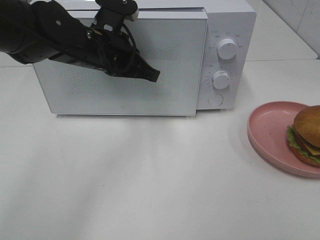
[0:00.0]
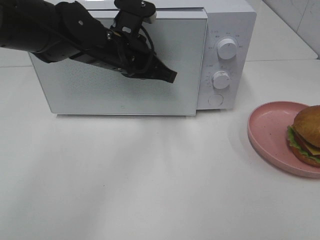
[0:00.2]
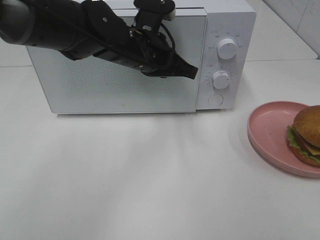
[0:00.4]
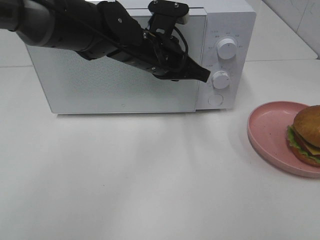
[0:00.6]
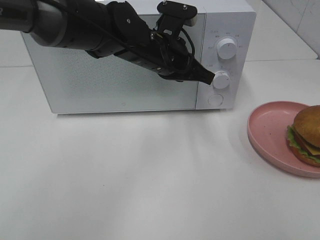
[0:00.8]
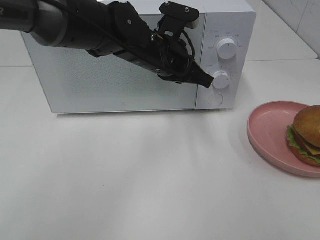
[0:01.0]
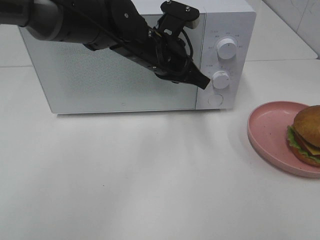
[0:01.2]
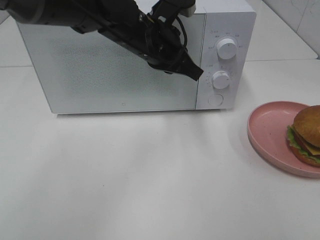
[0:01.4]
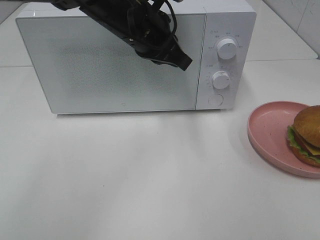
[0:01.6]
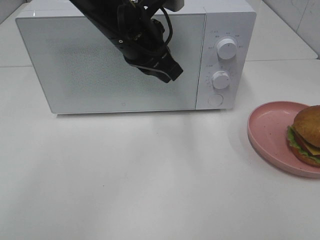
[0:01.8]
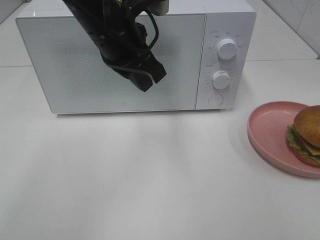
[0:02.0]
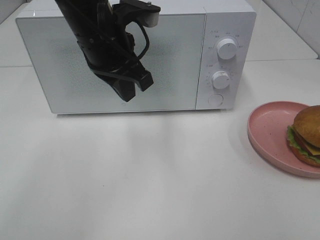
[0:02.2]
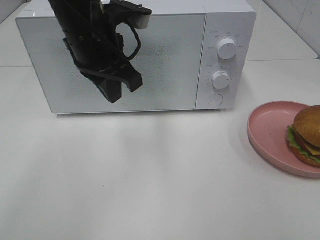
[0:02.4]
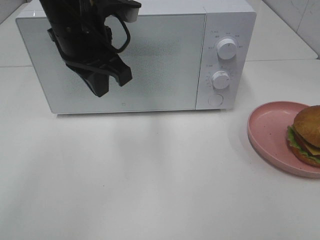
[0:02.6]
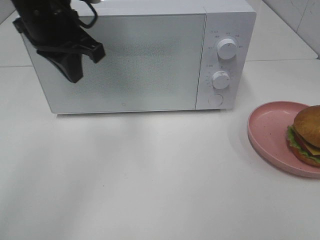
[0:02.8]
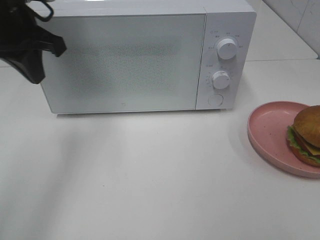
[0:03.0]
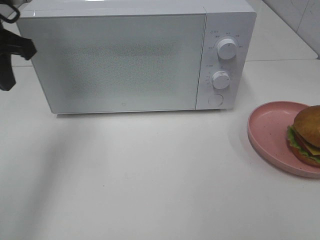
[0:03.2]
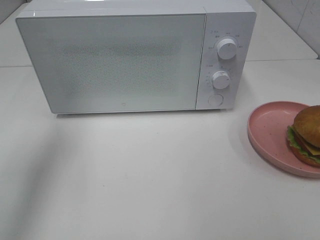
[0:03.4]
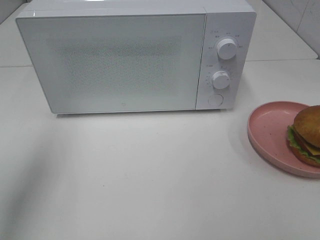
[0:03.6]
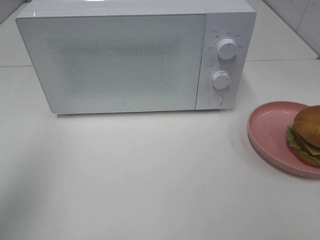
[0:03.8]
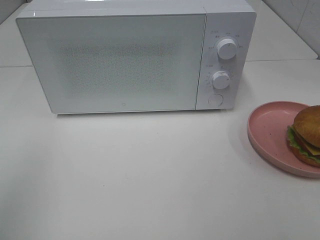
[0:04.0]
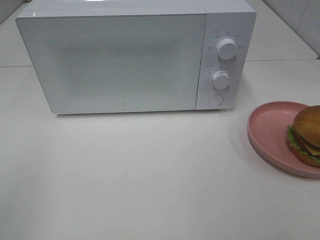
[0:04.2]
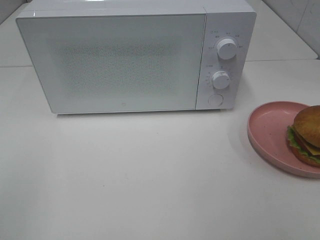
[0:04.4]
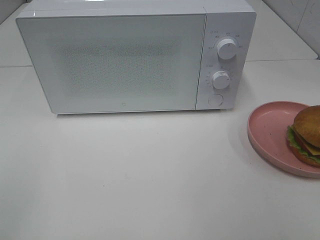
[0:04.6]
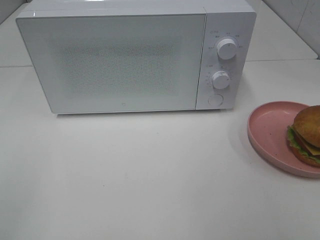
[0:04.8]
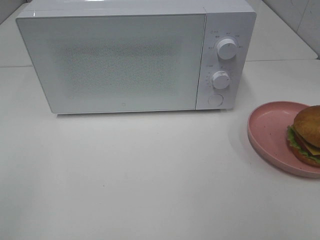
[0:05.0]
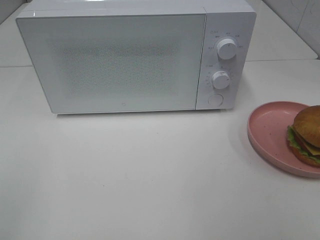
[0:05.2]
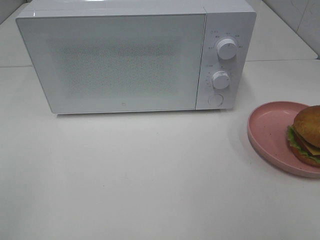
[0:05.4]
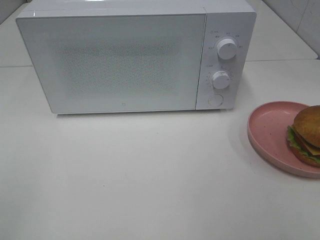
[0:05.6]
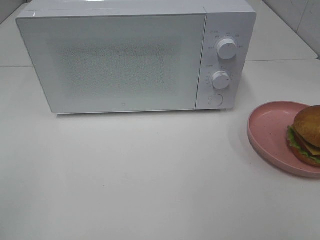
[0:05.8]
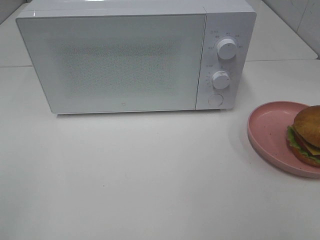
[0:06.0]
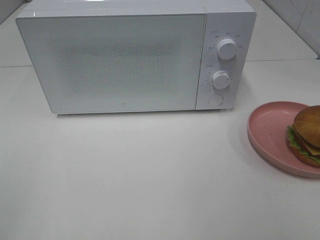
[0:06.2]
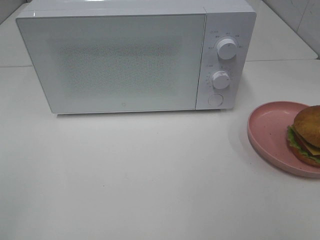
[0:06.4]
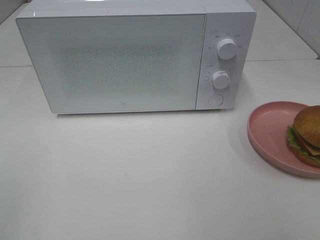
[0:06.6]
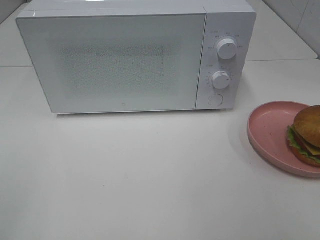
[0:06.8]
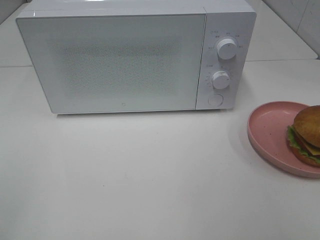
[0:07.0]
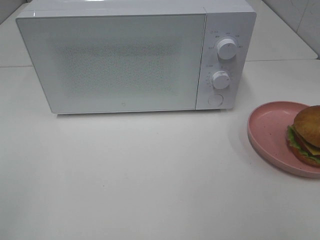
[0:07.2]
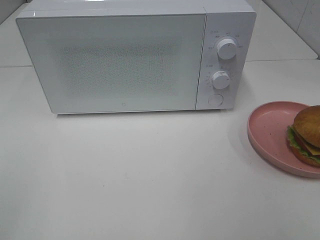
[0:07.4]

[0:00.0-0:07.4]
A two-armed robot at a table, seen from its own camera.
Task of the whole recording: Heat the burger.
0.0 to 1.4 s: The left gripper shifts roughly 5 cm to the right.
1.4 to 3.0 s: The left gripper shifts approximately 20 cm to the left.
3.0 to 4.4 s: The left gripper travels backward by some 30 cm.
6.0 to 7.4 s: The two grippers keep their place.

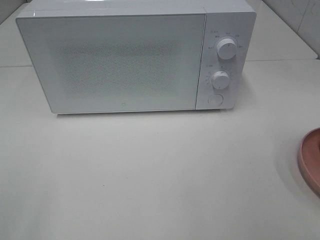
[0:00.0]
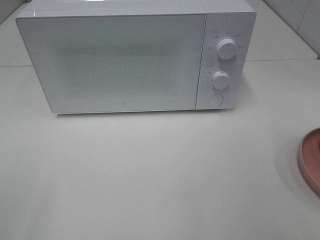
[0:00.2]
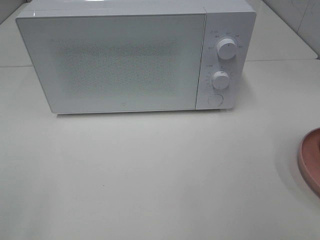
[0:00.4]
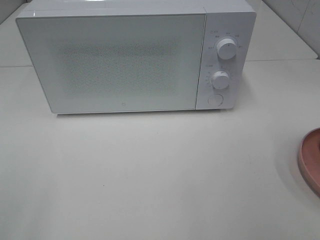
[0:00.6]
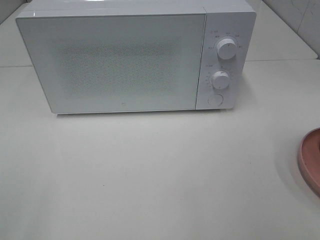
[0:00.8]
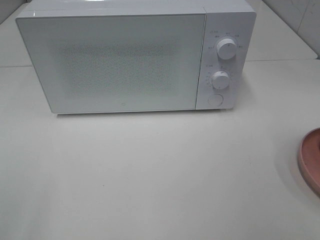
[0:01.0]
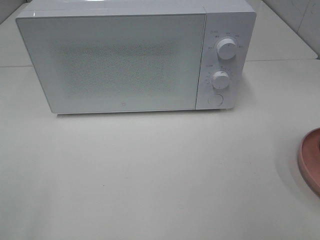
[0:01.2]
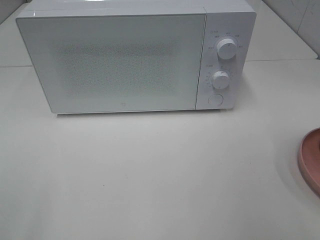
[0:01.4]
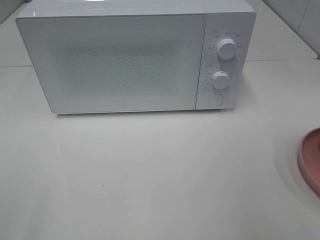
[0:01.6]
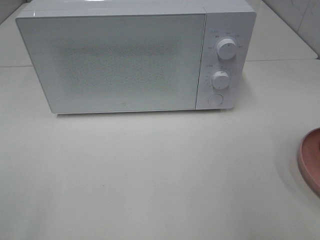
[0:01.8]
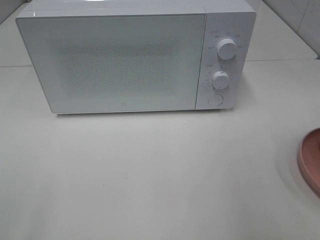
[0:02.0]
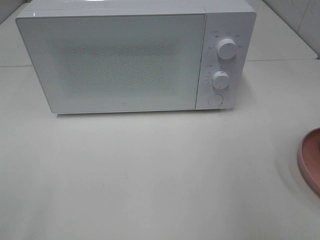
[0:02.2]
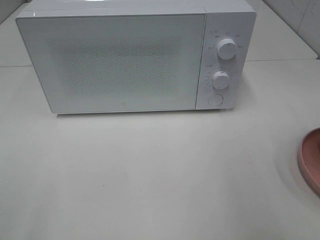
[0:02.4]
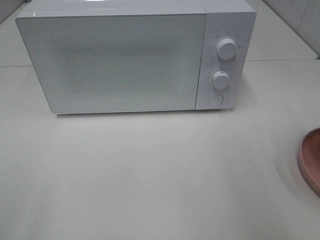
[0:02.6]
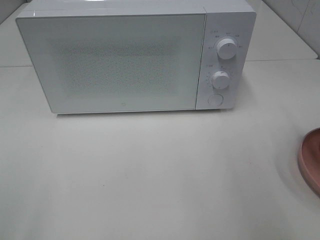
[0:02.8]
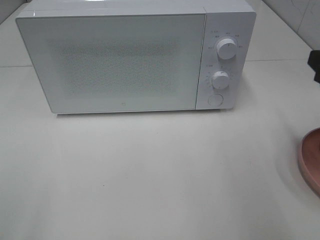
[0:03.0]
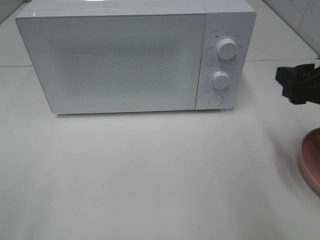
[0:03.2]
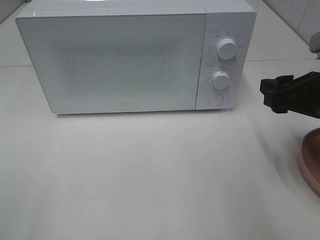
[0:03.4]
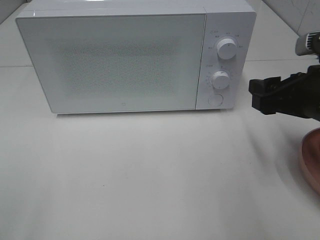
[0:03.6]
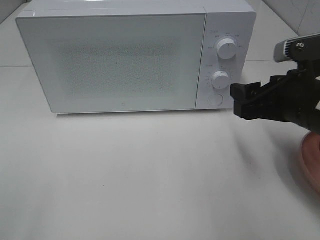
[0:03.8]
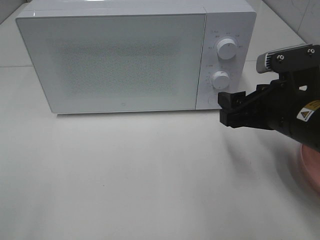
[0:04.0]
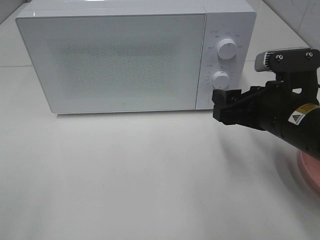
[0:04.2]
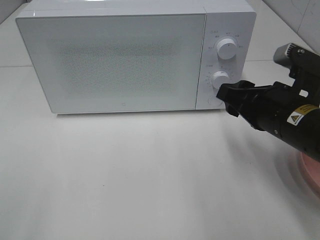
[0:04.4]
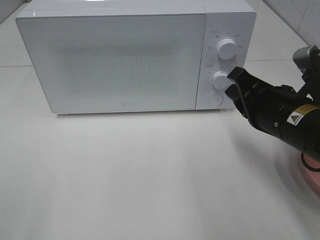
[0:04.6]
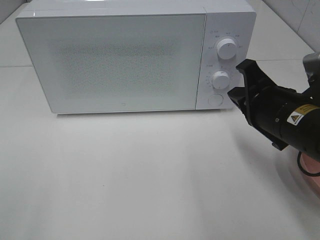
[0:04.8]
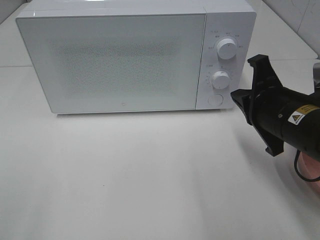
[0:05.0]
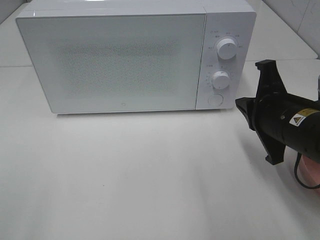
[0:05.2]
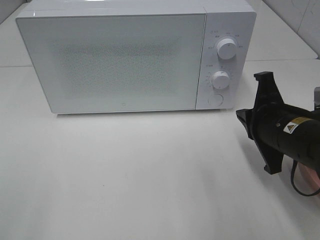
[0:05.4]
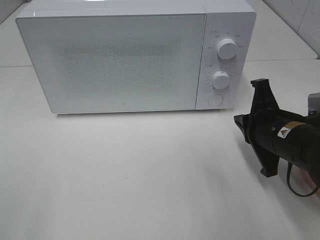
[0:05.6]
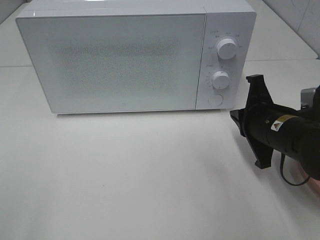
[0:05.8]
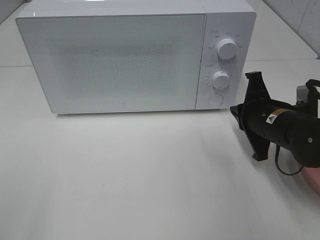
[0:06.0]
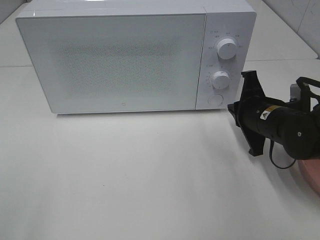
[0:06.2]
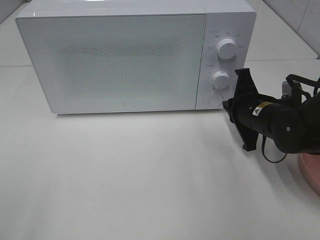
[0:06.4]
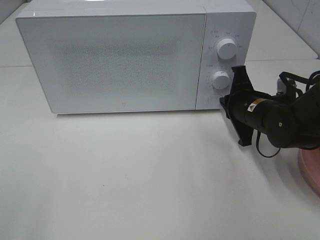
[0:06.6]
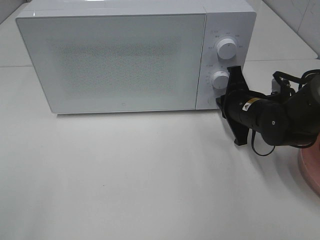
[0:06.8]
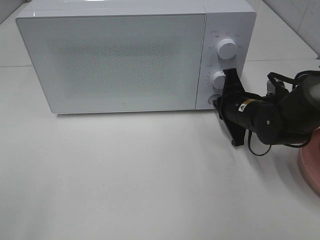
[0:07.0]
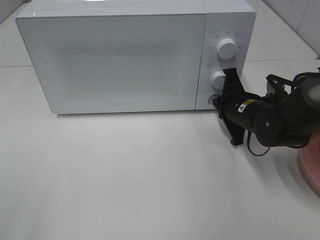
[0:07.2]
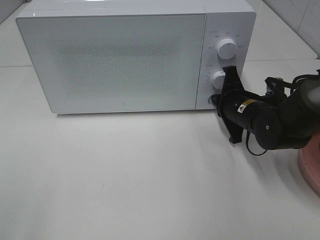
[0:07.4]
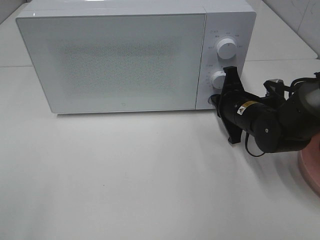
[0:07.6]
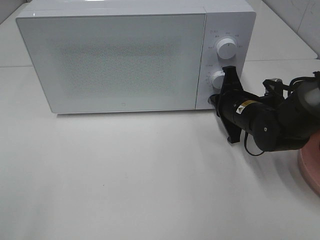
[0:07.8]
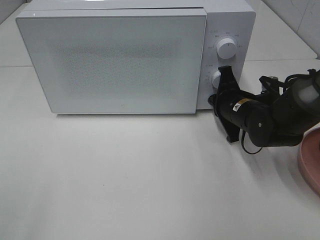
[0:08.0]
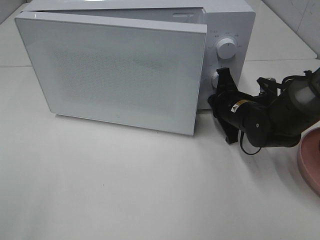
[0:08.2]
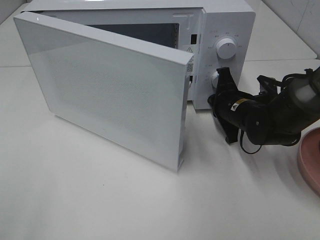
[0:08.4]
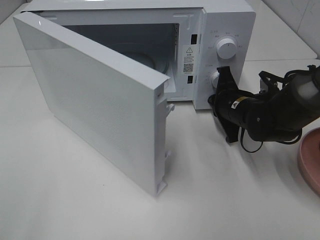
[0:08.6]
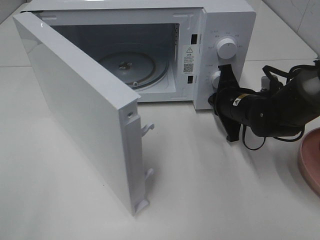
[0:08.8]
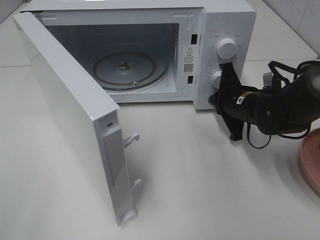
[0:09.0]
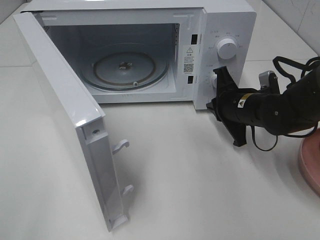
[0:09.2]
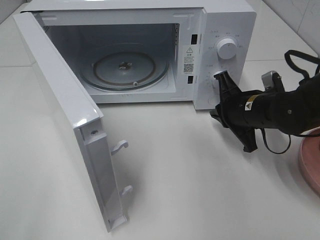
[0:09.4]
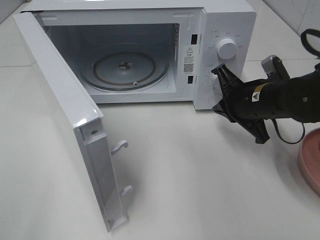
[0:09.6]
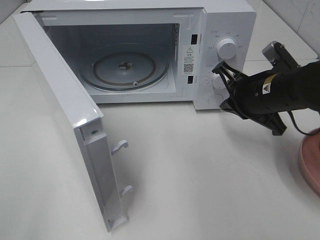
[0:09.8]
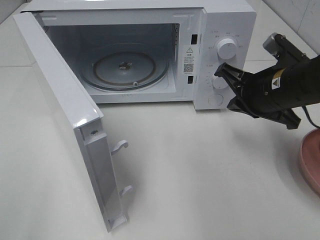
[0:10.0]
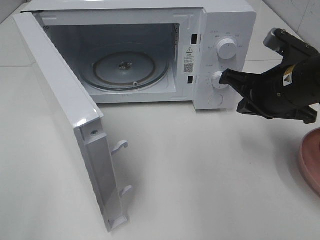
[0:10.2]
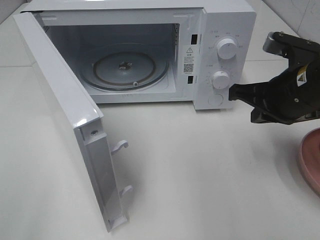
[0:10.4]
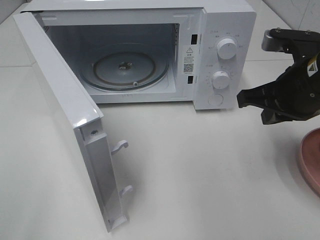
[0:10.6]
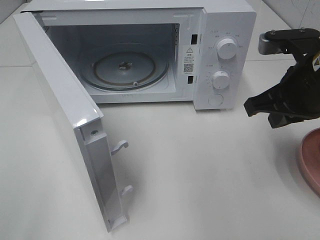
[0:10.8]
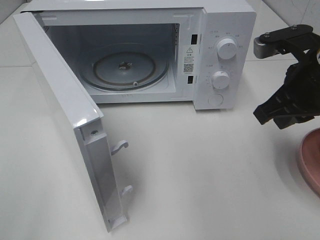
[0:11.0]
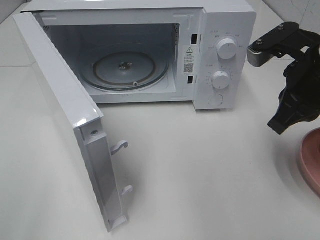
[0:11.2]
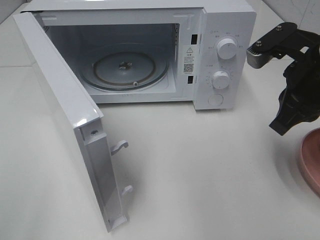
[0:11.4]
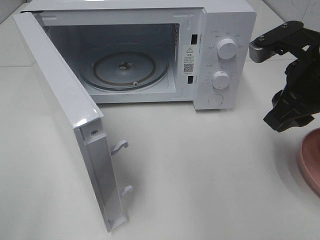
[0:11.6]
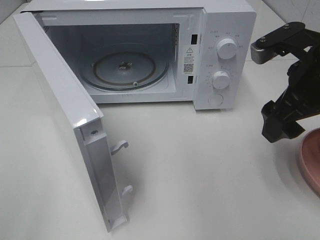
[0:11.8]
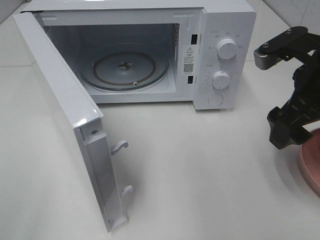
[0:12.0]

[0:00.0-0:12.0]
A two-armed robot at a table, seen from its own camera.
Task of the whole recording: Heat the burger.
Step, 0.0 to 9.0 s: Right hand: press the switch.
3.0 to 4.4 s: The right gripper moves to the left and downward, approximately 10 cm.
4.4 to 6.0 s: The right gripper travels downward and forward by approximately 10 cm, and closes.
6.0 to 7.6 s: The right gripper is displaced forward by roughly 5 cm.
9.0 to 10.4 s: The right gripper shifts some 15 cm upward and backward.
10.4 to 12.0 s: The right gripper opens its fingers.

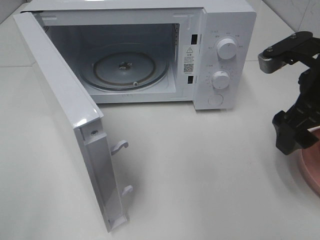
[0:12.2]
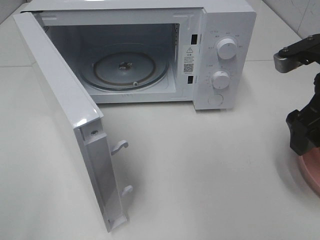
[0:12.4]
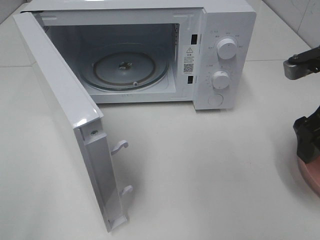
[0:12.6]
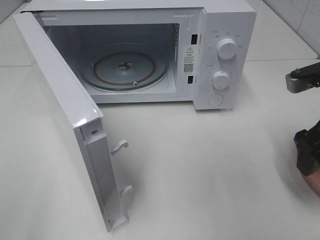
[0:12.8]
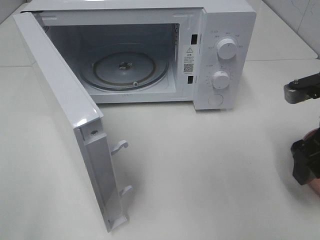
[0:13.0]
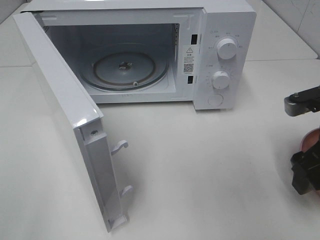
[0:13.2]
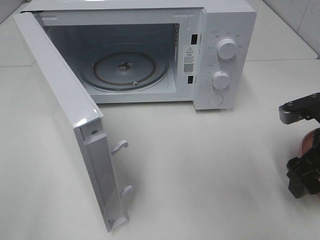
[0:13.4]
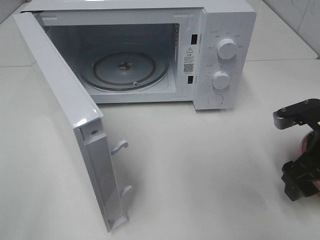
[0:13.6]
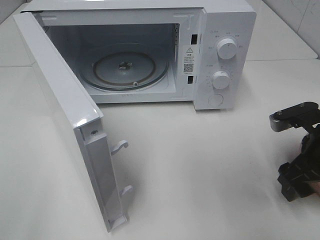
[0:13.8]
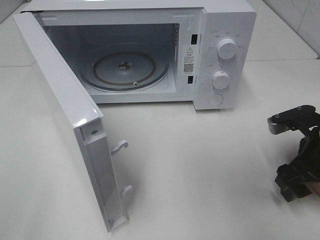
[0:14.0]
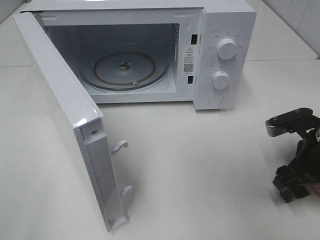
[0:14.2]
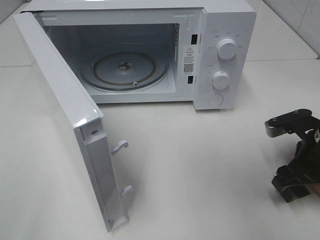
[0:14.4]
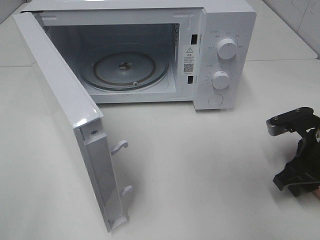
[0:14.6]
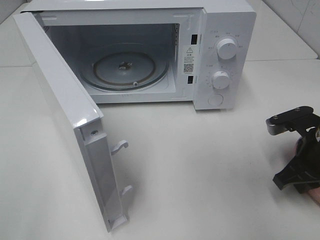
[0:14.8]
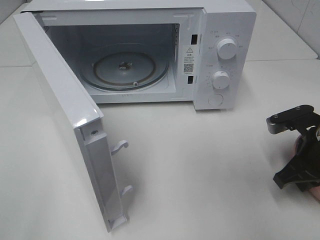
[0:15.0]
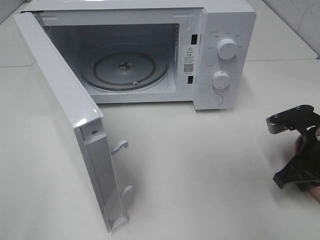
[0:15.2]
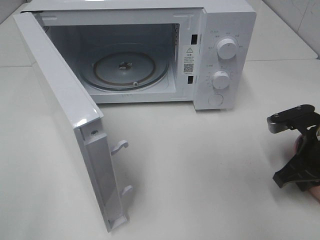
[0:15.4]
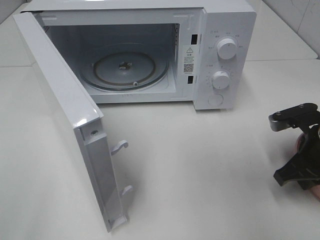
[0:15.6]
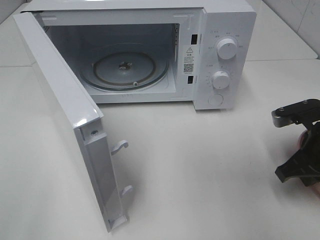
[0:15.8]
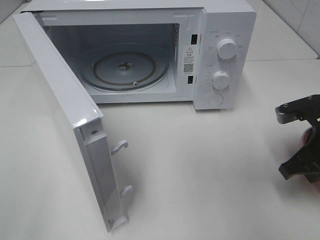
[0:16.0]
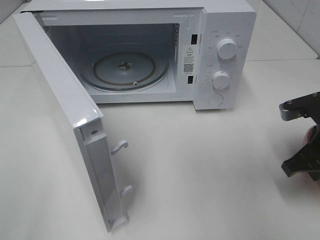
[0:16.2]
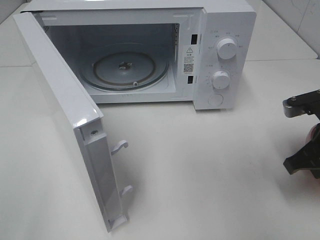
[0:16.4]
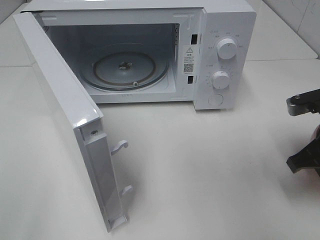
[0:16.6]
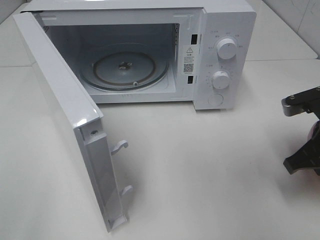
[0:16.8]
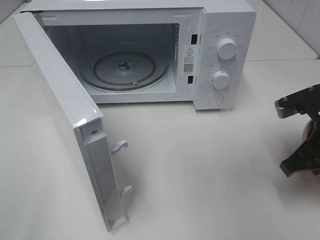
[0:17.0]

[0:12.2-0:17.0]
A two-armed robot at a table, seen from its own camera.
Task of the whole recording: Heat the burger.
Step, 12.2 to 15.6 s: Right hand: grab the plate with the hamburger.
12.2 to 13.8 s: The right gripper moves downward, roughly 10 cm.
13.8 to 15.4 s: The right gripper closes up.
15.4 to 17.0 s: There are only small adjustments of the grippers.
